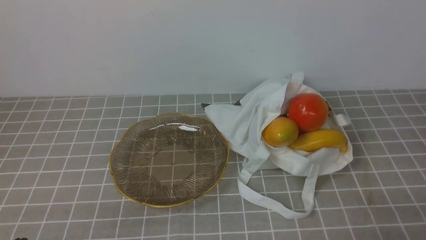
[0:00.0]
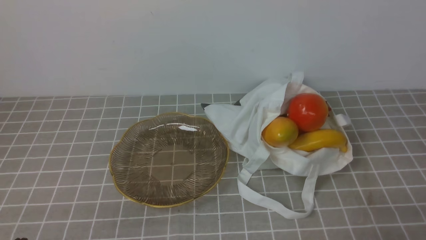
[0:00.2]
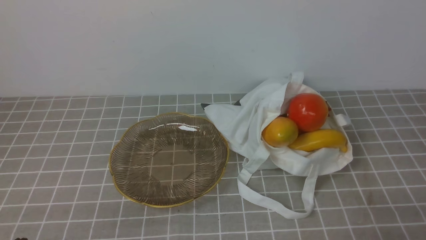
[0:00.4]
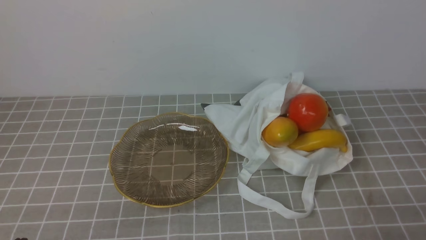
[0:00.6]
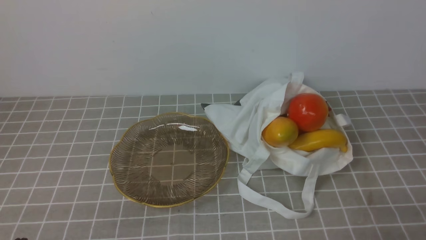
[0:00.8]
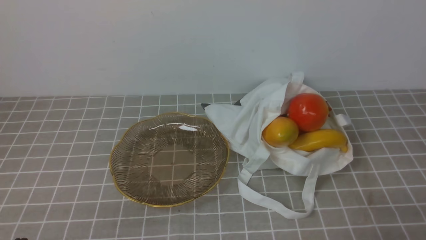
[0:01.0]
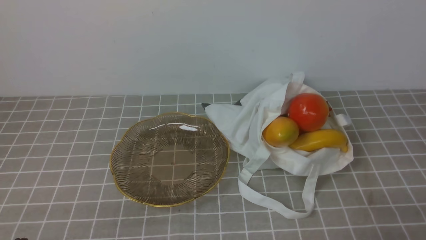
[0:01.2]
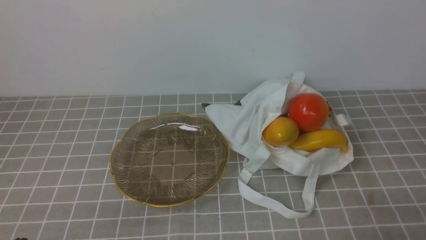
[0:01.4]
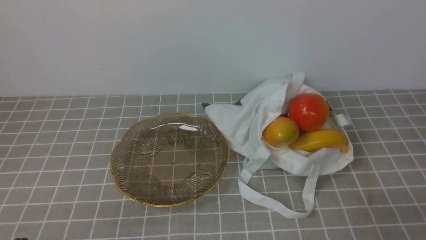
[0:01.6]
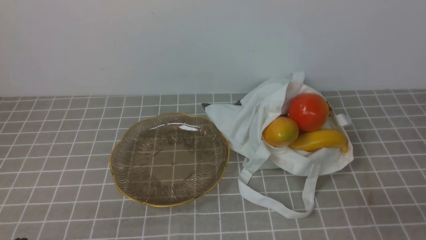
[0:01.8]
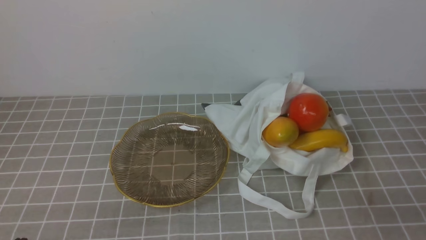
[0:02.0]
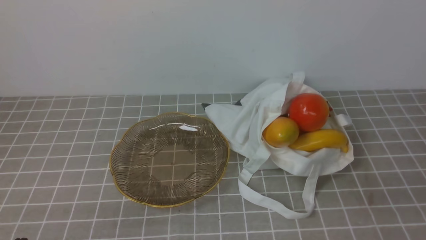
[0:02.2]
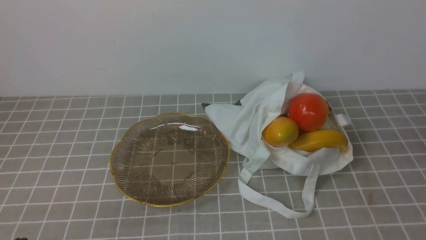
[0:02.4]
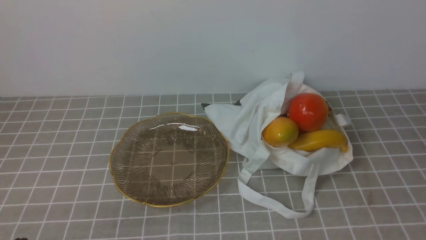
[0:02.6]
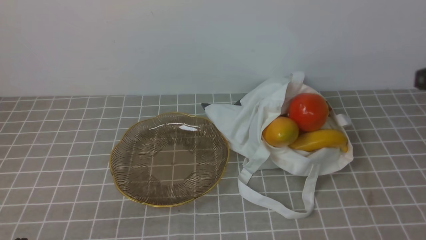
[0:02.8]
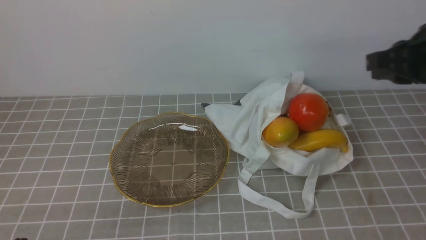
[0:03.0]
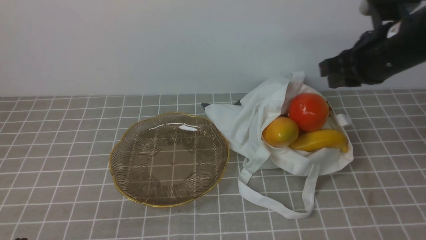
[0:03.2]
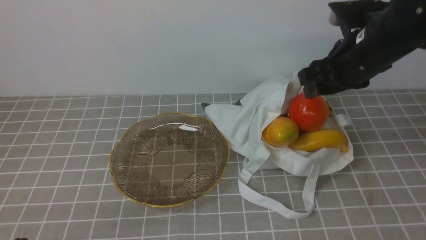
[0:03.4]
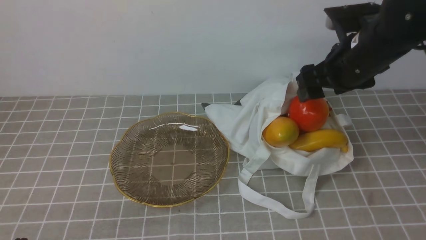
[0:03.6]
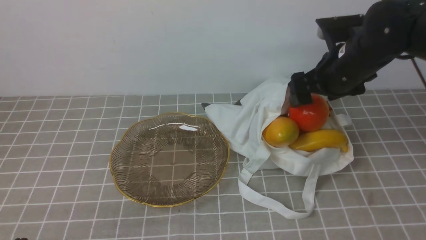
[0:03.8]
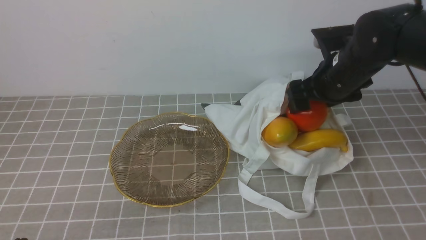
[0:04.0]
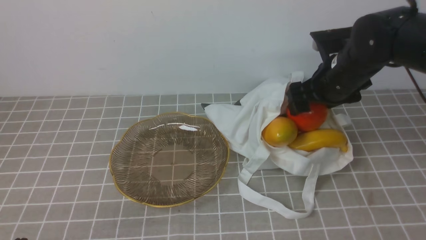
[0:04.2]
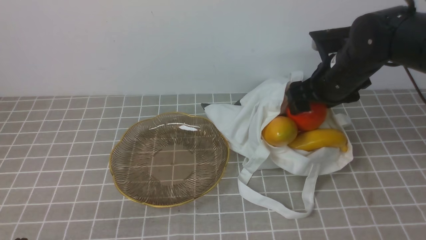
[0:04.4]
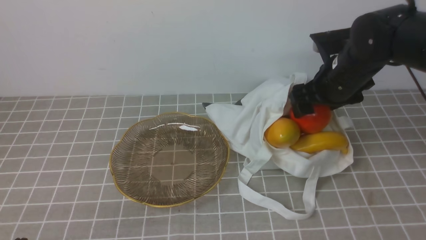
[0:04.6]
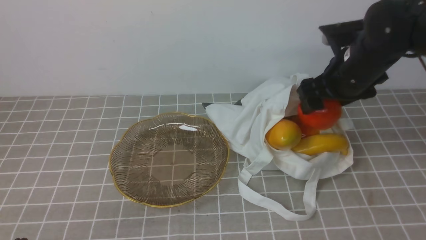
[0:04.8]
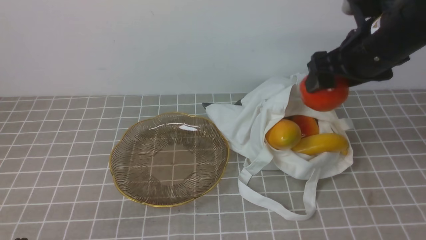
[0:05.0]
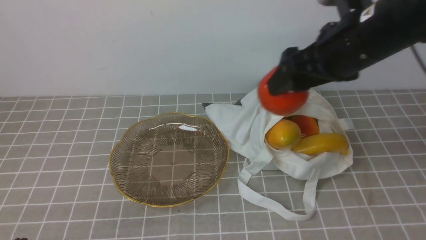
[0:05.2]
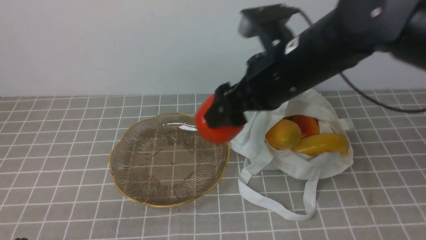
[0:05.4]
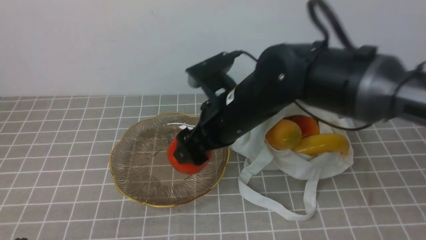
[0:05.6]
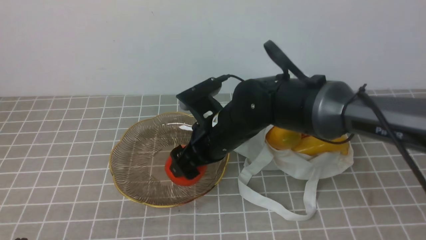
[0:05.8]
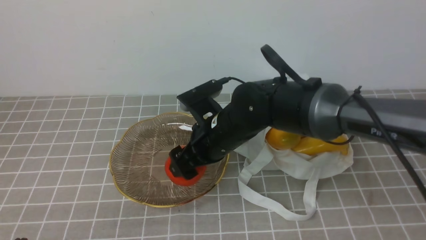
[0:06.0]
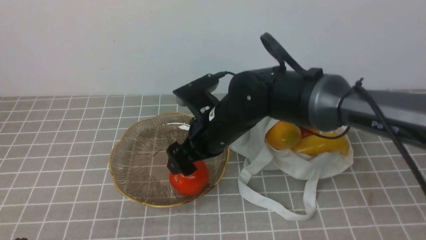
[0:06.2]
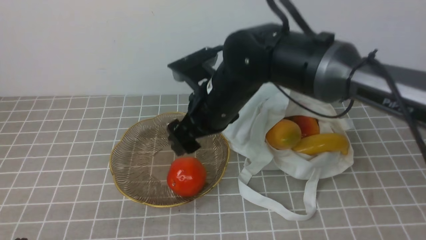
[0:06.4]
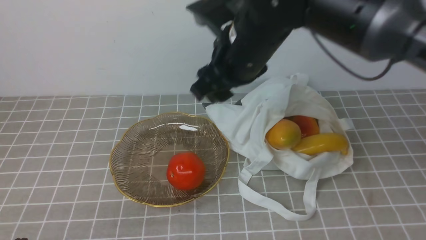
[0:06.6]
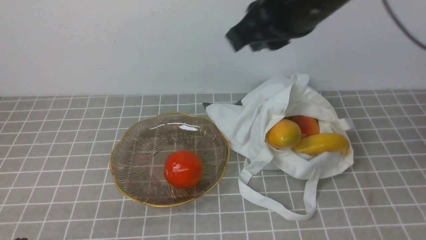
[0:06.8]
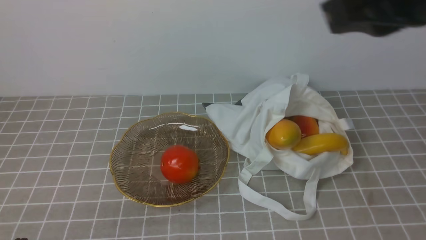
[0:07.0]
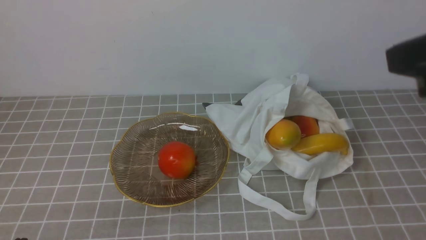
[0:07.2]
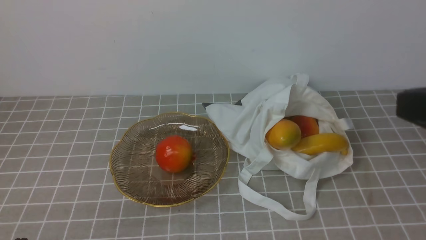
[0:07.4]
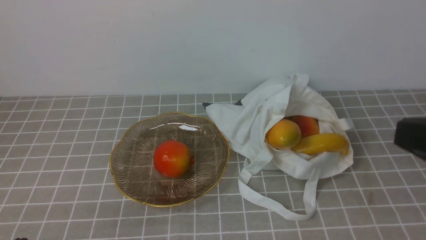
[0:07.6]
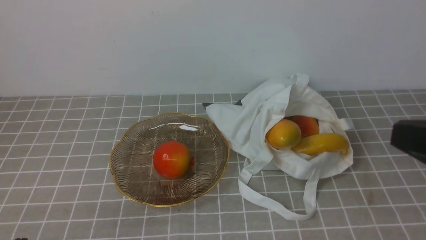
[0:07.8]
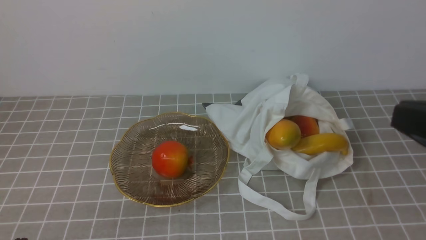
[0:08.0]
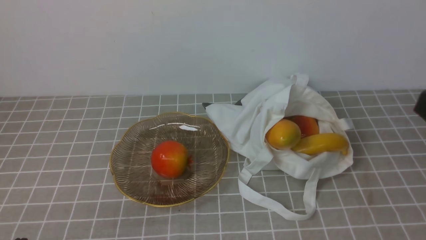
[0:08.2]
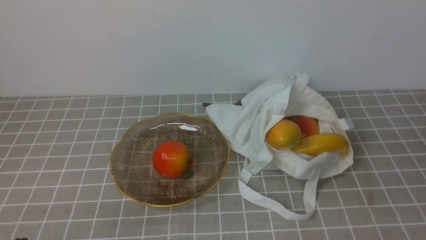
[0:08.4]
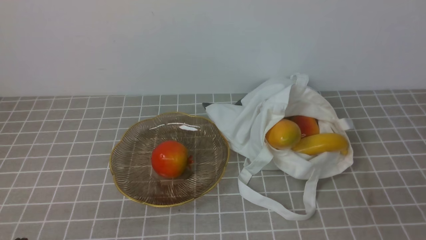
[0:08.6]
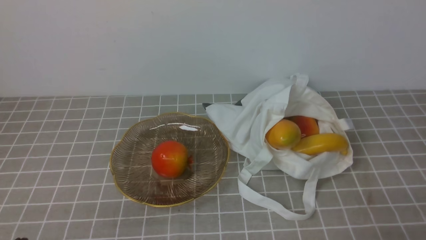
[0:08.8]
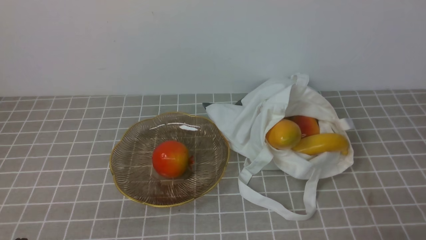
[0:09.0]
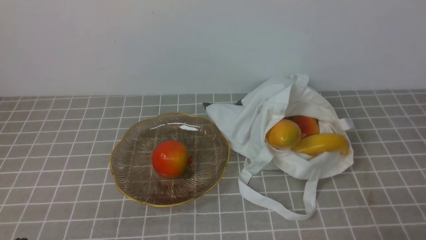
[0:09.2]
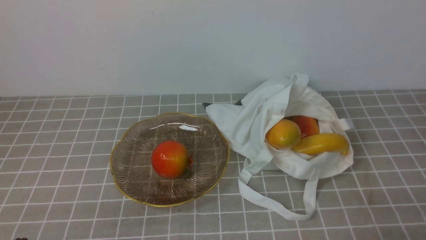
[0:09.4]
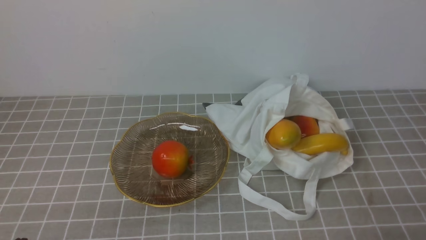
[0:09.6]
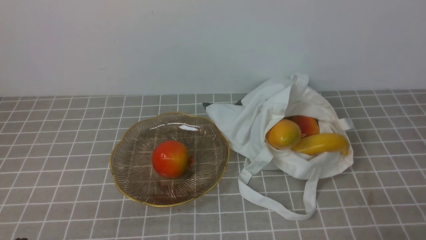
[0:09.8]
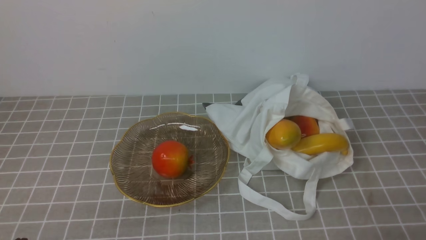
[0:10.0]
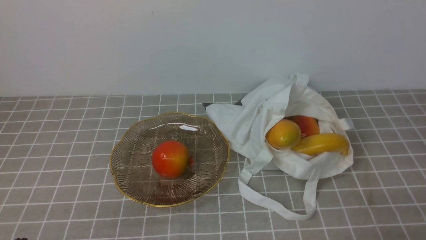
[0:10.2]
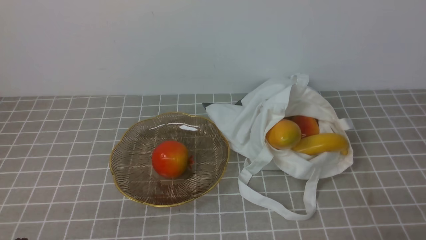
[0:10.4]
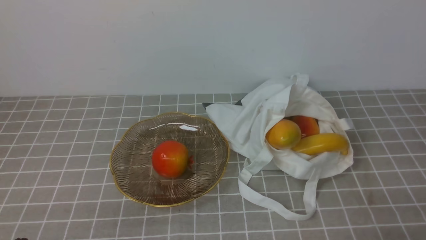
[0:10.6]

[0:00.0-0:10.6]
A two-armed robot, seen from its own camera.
Step, 0:00.0 to 0:04.6: use the right arm to grab a pomegranate from the bag.
Step, 0:04.8 to 0:06.2: use the right arm to put the pomegranate into the empty plate on the left.
0:01.6 to 0:03.0: The right gripper is displaced forward and upward by approximately 25 cm.
0:03.0 to 0:04.6: The right gripper shifts roughly 20 cm forward, downward and to the left, and opens.
0:04.6 to 0:06.0: The right gripper moves to the left, about 20 cm.
0:06.0 to 0:07.6: The right gripper is displaced to the right, backward and upward by roughly 35 cm, and closes.
0:07.6 to 0:09.0: The right gripper travels downward by roughly 20 cm.
0:09.0 to 0:10.6: Neither gripper changes place.
